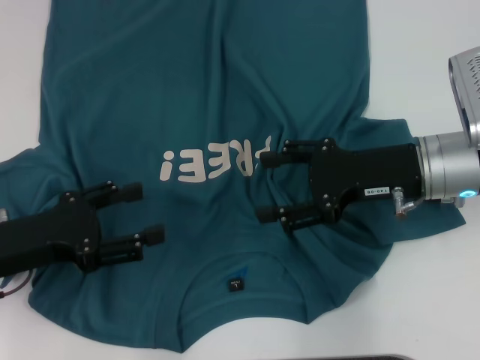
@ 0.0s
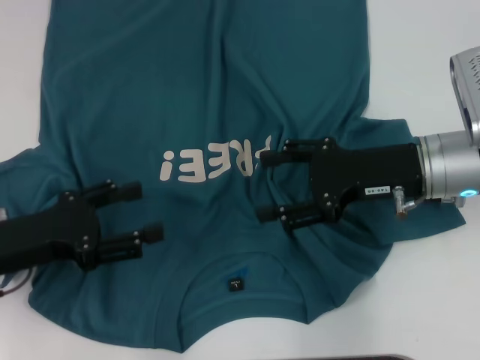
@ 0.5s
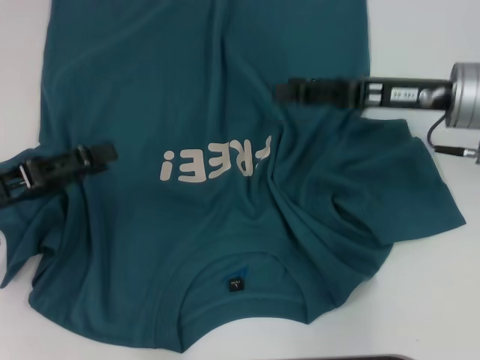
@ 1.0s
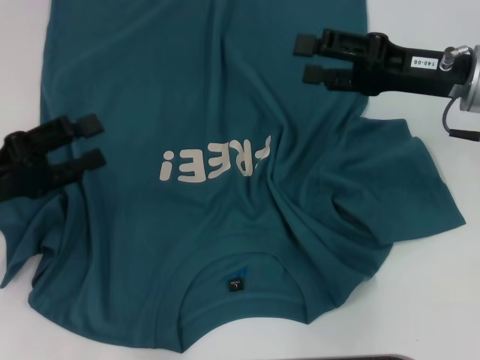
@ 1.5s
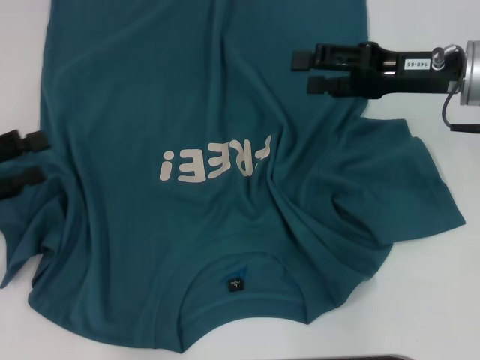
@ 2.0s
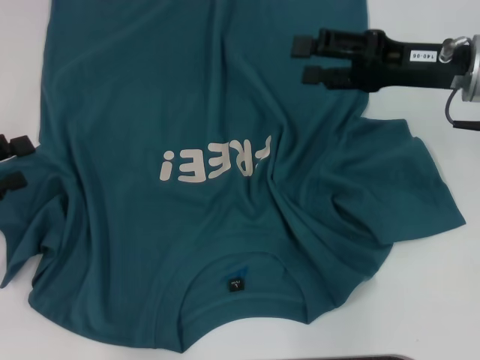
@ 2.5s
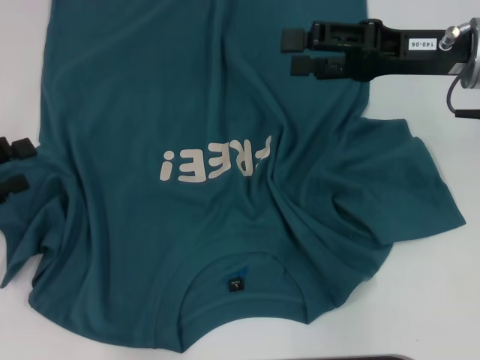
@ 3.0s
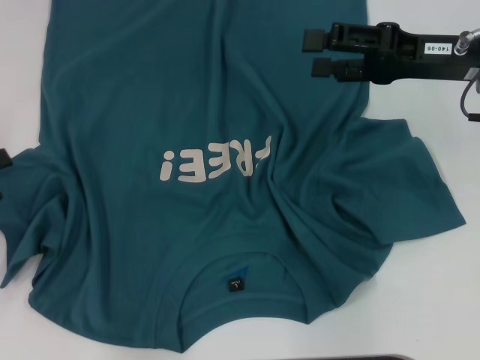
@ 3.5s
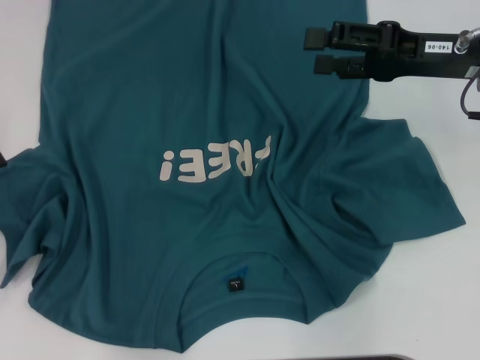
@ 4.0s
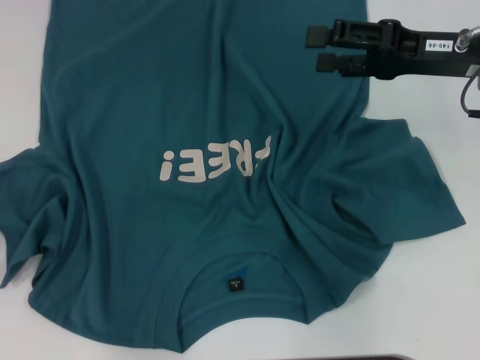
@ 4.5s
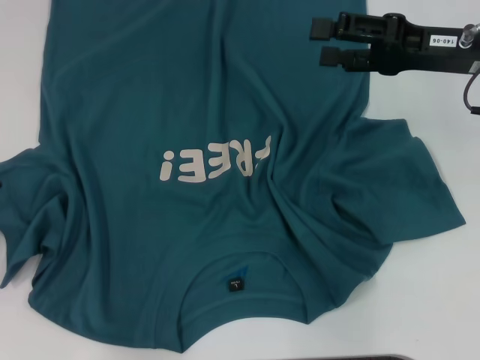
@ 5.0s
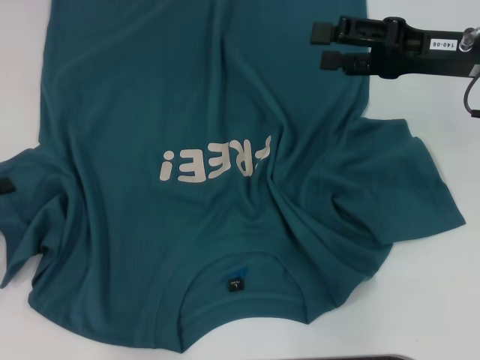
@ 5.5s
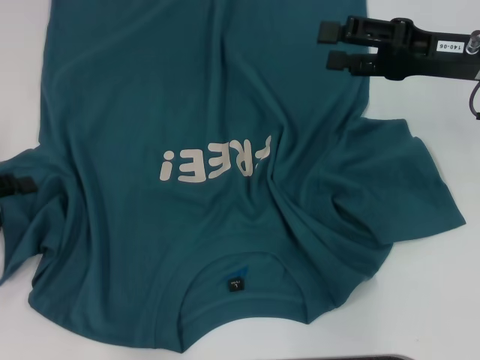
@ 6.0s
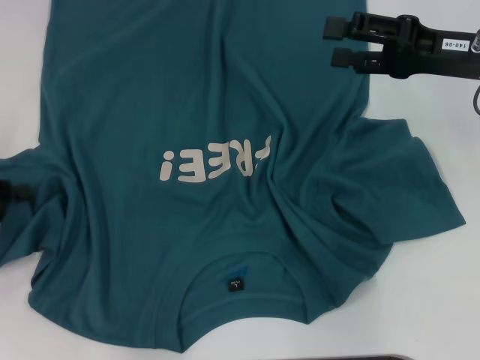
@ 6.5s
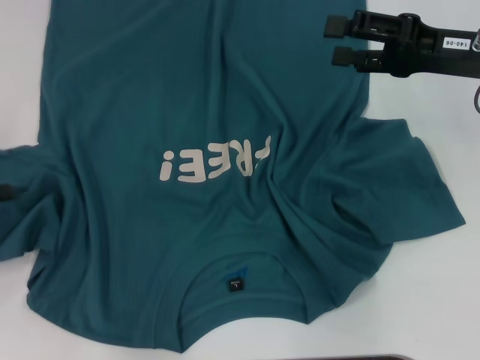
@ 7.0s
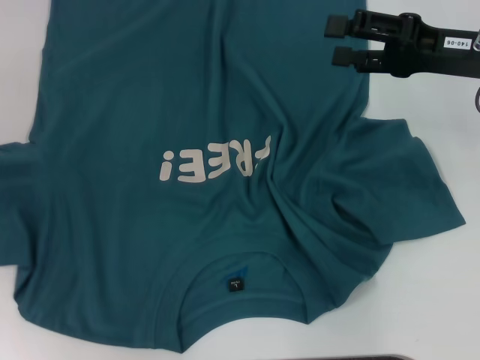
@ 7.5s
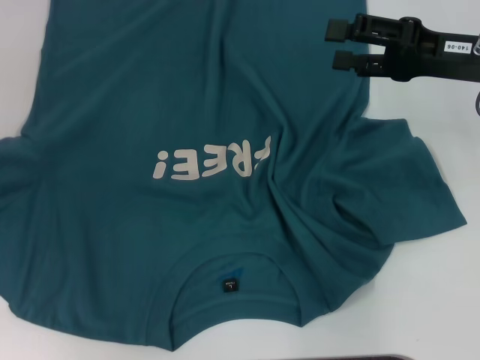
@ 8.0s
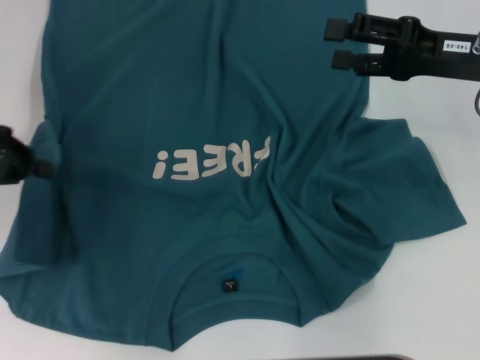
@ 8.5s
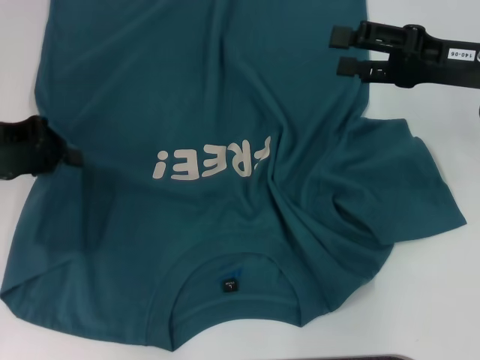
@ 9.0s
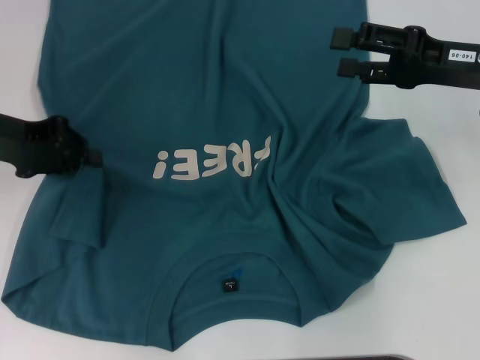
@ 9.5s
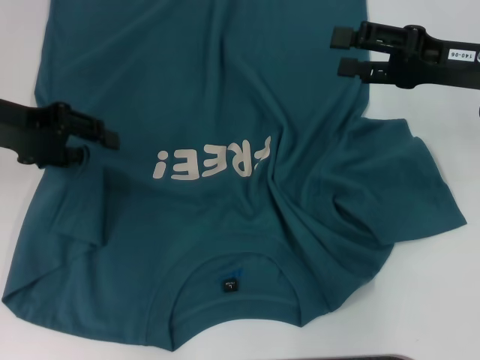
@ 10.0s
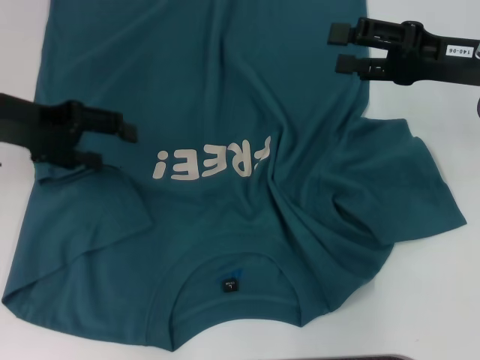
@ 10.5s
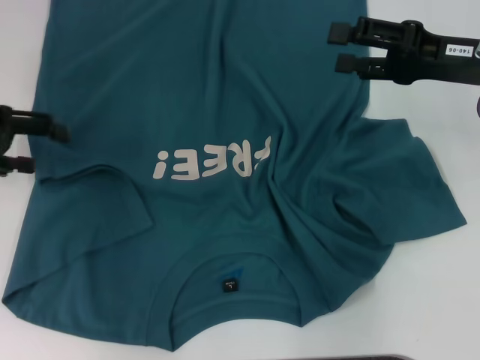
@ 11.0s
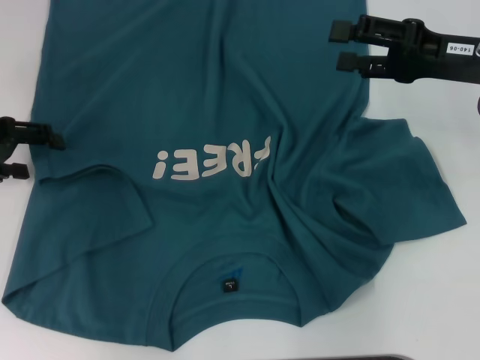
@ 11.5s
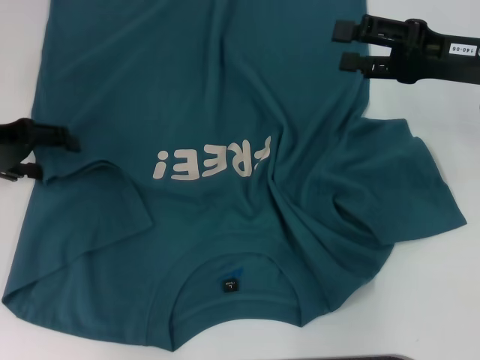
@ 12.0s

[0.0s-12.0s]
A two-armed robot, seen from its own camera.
0.0s to 2.0s: The right gripper goes roughly 5 cm forward. Meanwhile the left gripper travels to the left by about 10 cm.
2.0s to 4.0s: The grippers make only small movements.
4.0s to 6.0s: The grippers move only a little.
6.0s to 8.0s: The left gripper is displaced upward and forward by approximately 10 cm, and closes its fingers.
8.0s to 10.0s: The left gripper moves to the right, roughly 10 cm, and opens.
10.0s to 12.0s: The left gripper opens.

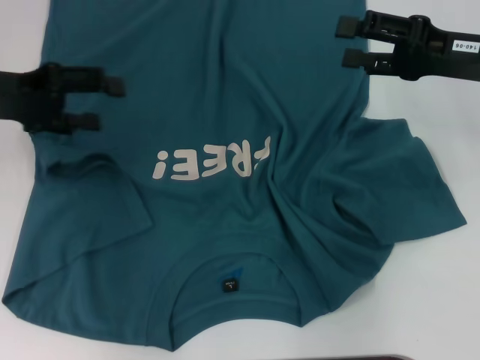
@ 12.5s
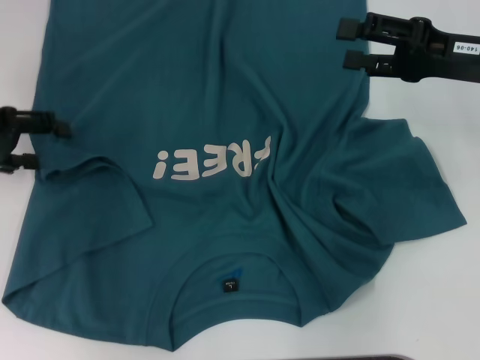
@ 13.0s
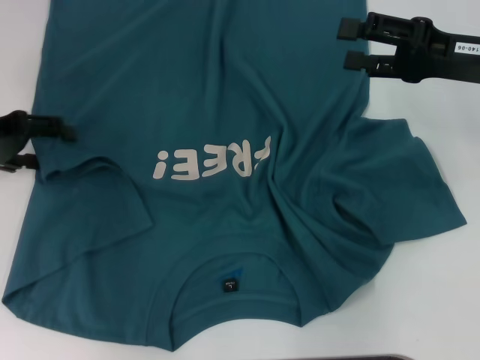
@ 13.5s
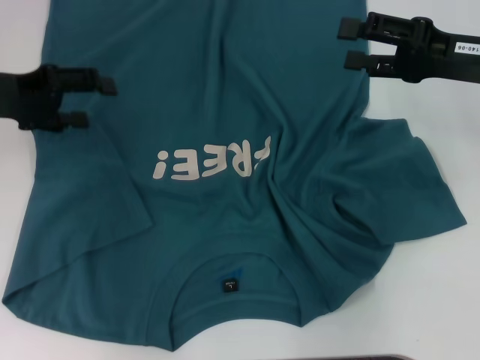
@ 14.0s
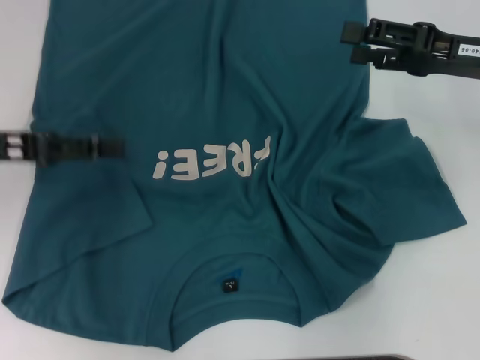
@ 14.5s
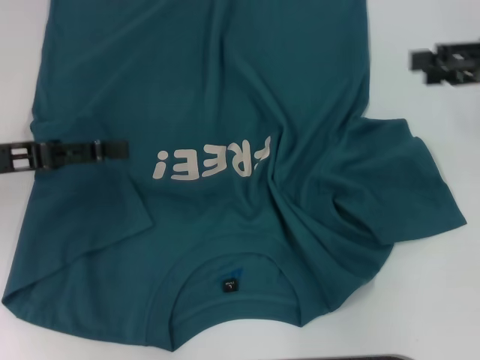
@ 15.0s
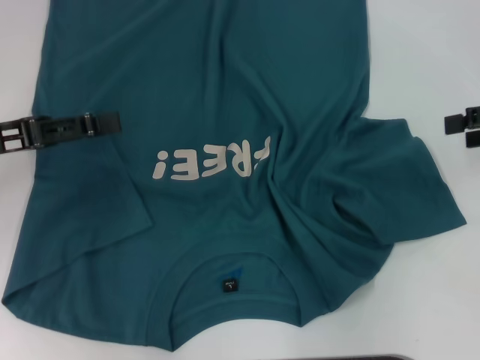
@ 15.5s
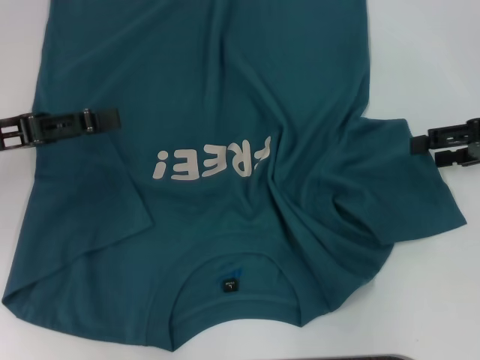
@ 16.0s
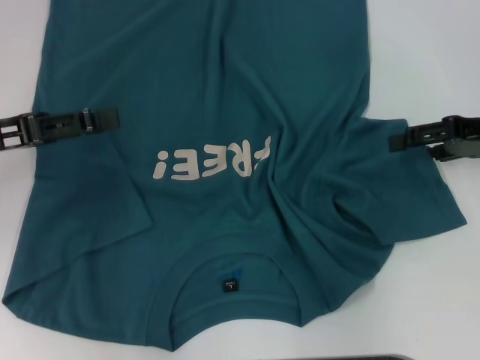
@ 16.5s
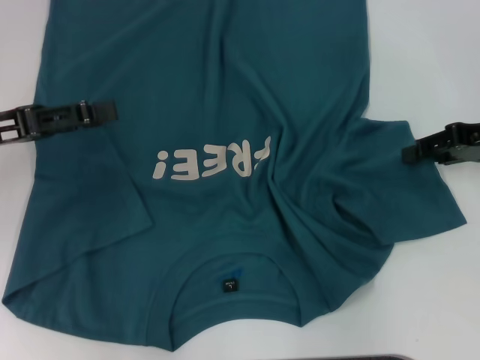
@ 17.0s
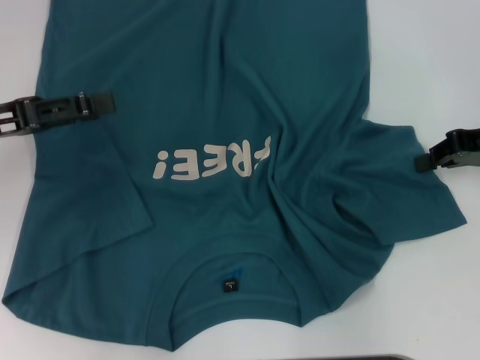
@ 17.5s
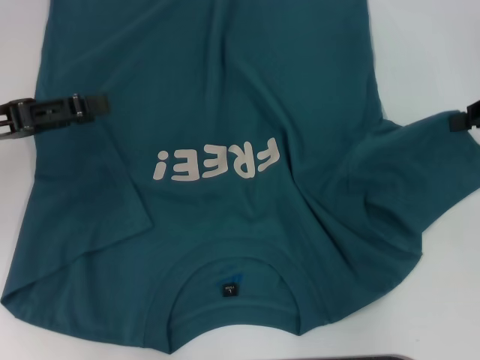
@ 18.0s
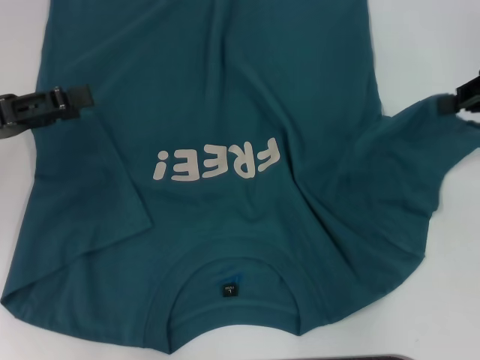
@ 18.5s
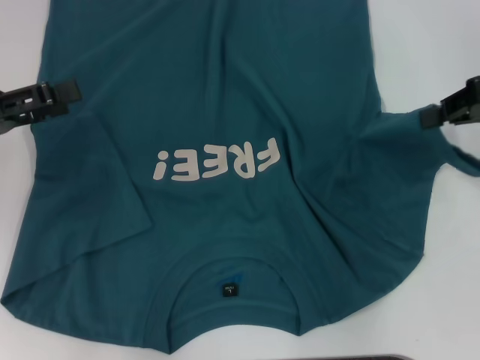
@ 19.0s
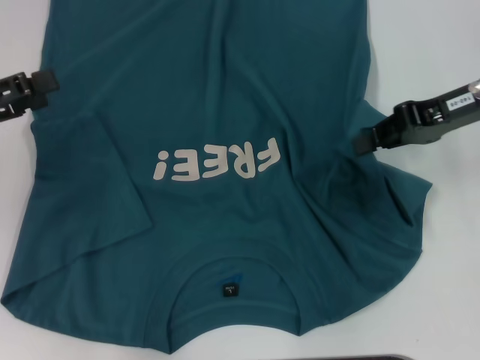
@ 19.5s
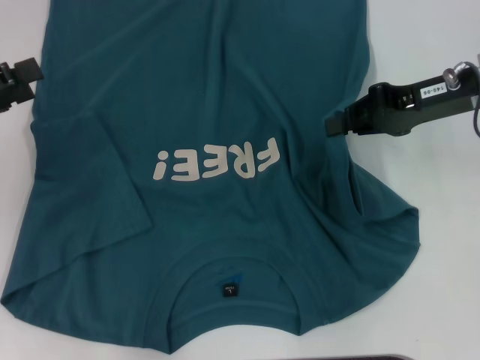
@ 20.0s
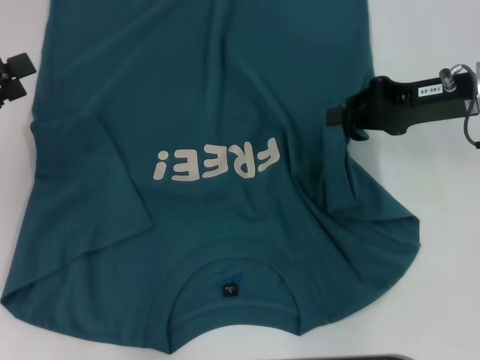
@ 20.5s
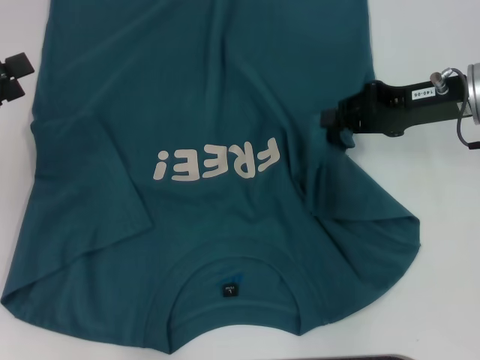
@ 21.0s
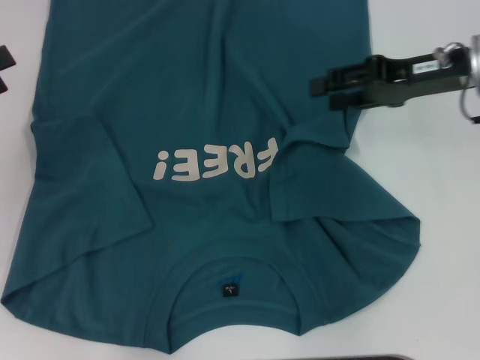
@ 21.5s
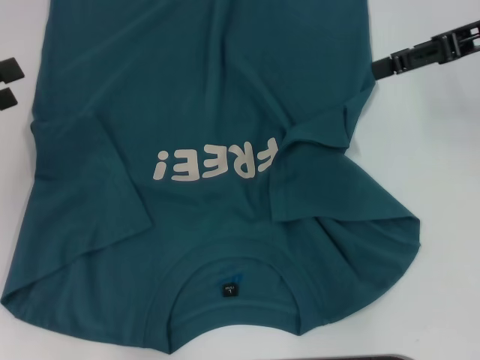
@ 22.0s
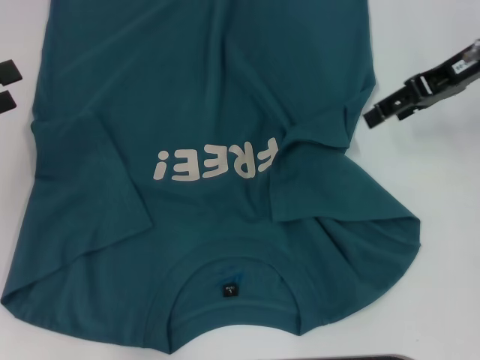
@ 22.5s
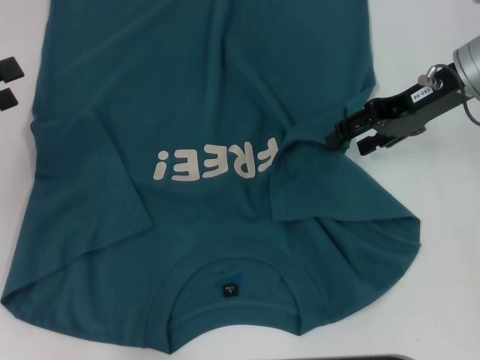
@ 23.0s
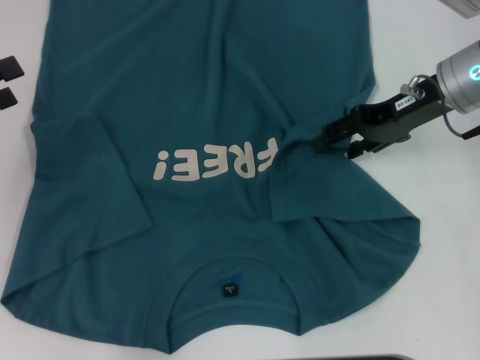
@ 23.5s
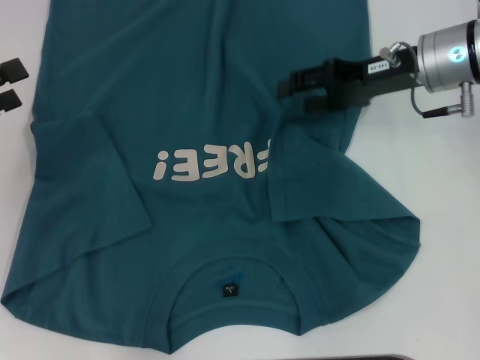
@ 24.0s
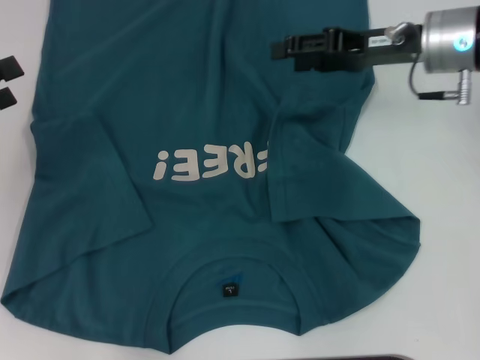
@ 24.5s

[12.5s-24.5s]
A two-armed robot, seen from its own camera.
Step, 14.5s to 24.0s: Fold the bottom right sleeve to the right.
16.5s to 18.5s: The right gripper is displaced upward by approximately 5 cm, and closes its fingers.
18.5s to 20.5s: The right gripper is displaced to the left by roughly 10 cm.
20.5s to 22.5s: The right gripper moves upward, some 5 cm, and opens up.
22.5s to 24.5s: The right gripper is displaced downward by approximately 5 cm.

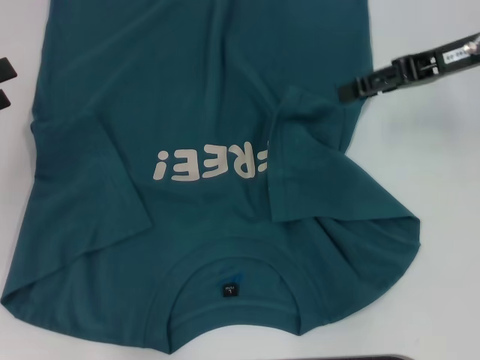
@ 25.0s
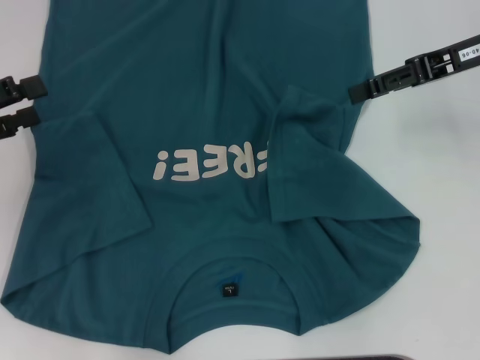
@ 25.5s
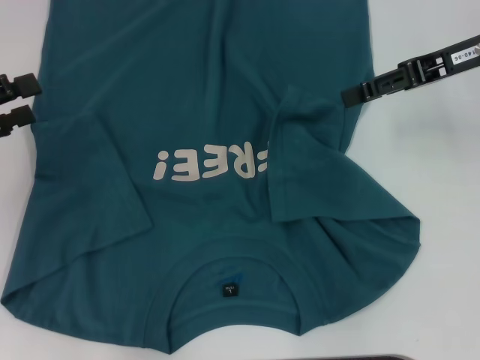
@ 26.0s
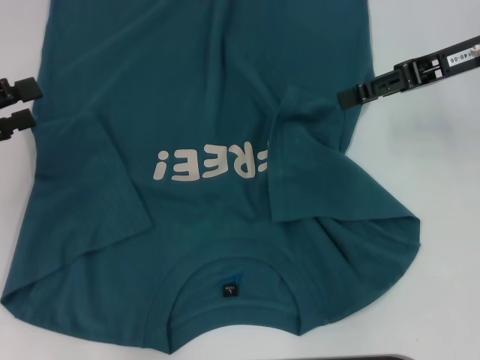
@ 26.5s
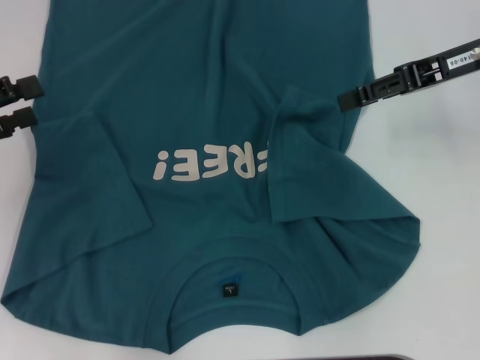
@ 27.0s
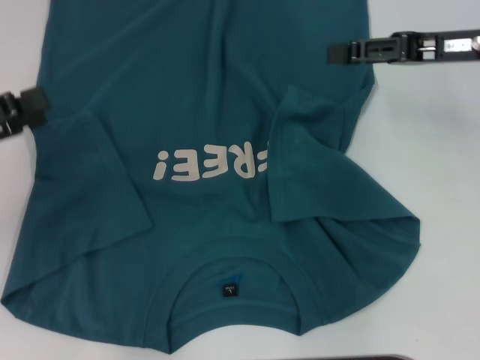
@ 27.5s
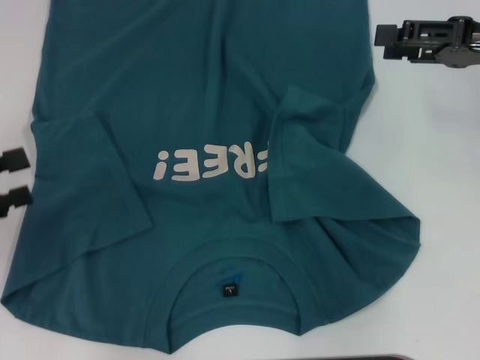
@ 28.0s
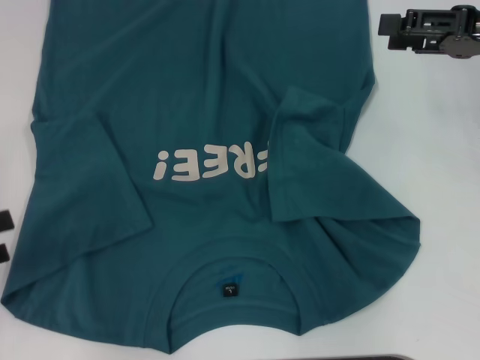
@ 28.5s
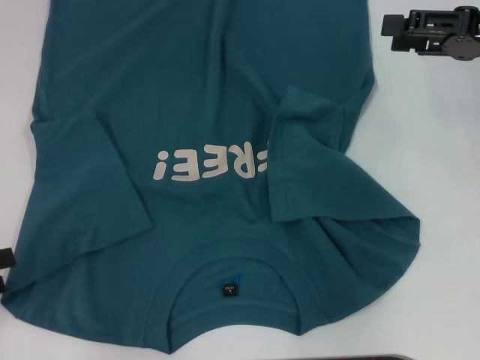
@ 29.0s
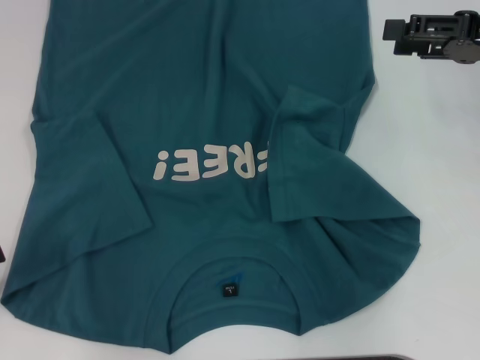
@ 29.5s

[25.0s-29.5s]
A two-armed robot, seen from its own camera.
25.0s to 27.0s: There are only small adjustments of the grippers.
27.0s to 29.5s: The right gripper travels to the right by roughly 5 cm. Meanwhile the left gripper goes approximately 10 cm backward, downward and to the left.
